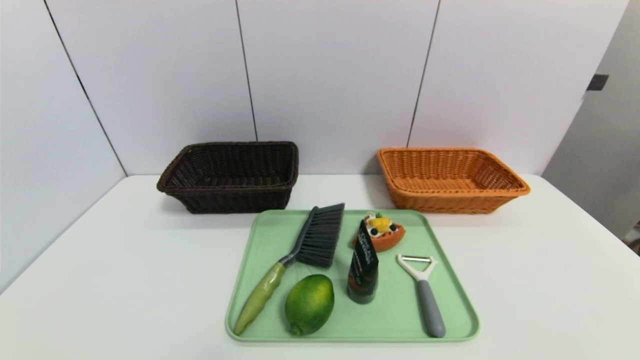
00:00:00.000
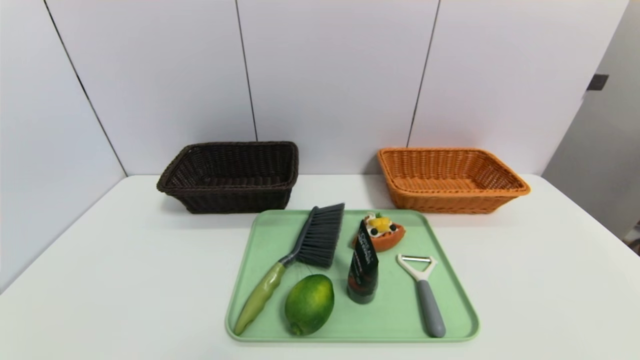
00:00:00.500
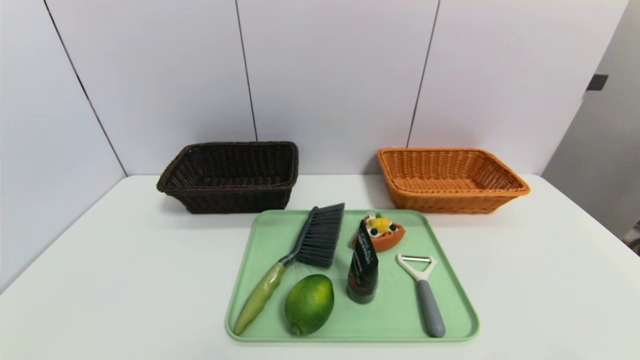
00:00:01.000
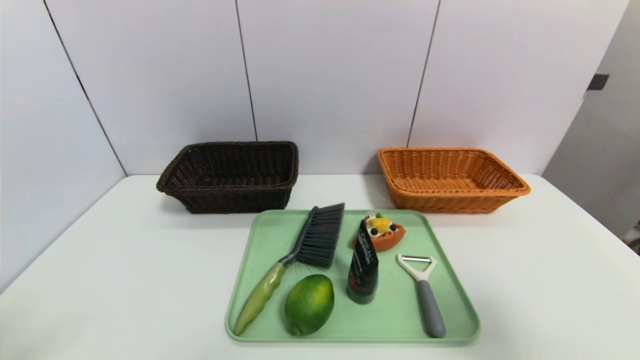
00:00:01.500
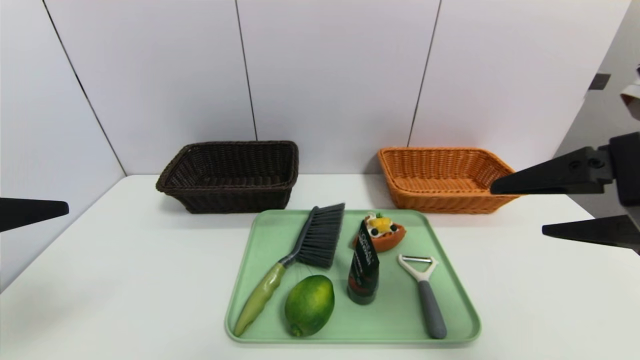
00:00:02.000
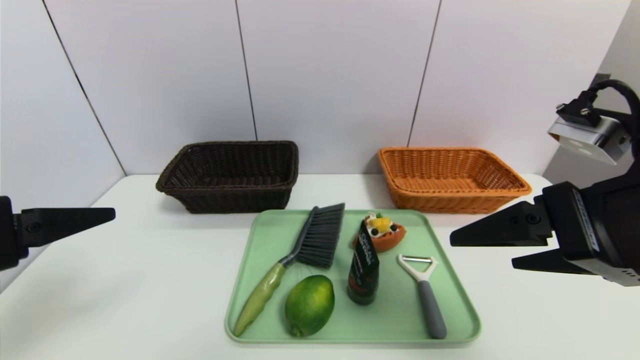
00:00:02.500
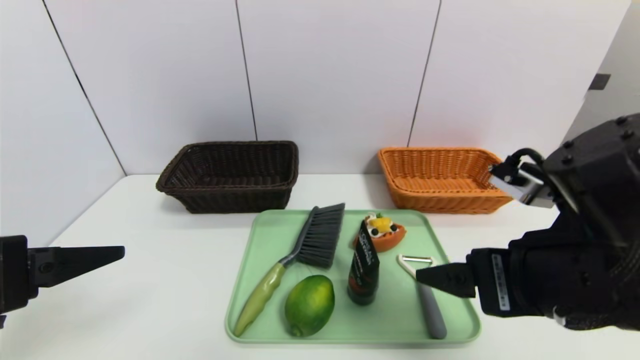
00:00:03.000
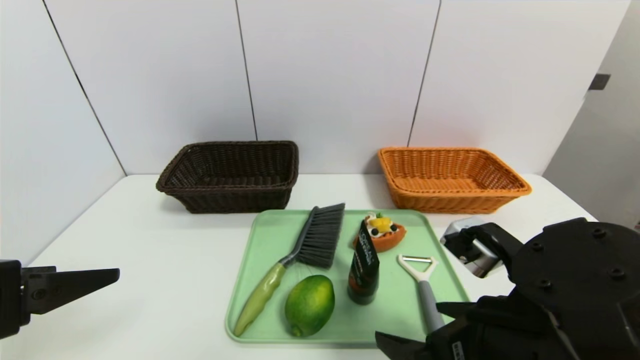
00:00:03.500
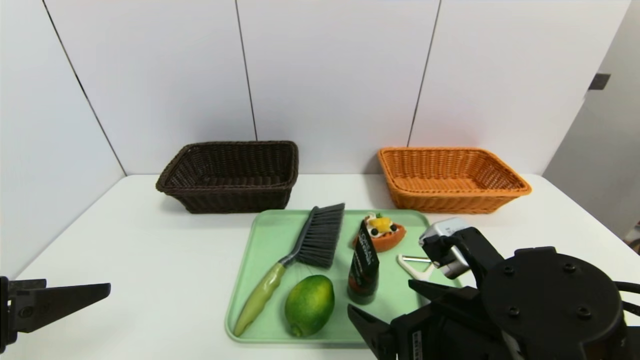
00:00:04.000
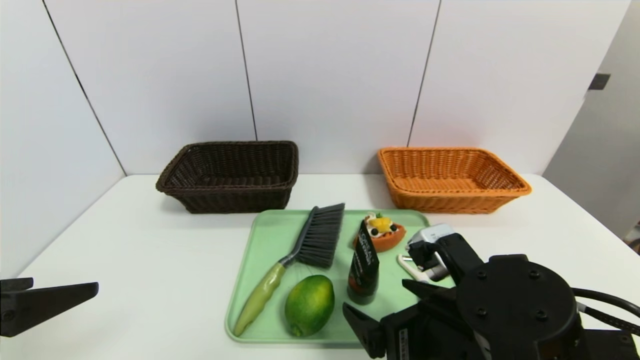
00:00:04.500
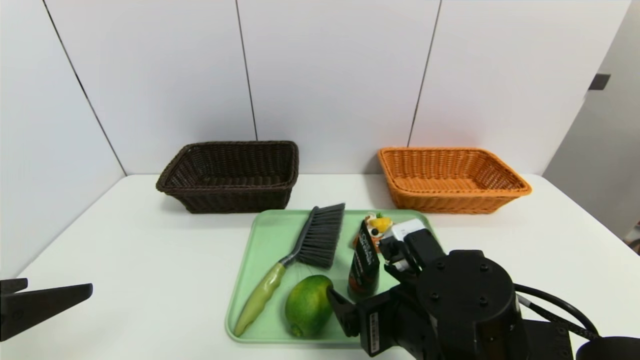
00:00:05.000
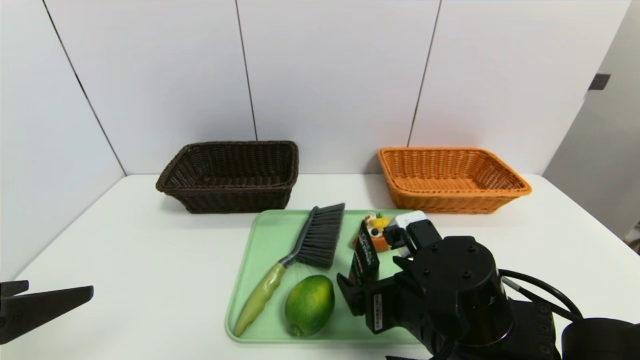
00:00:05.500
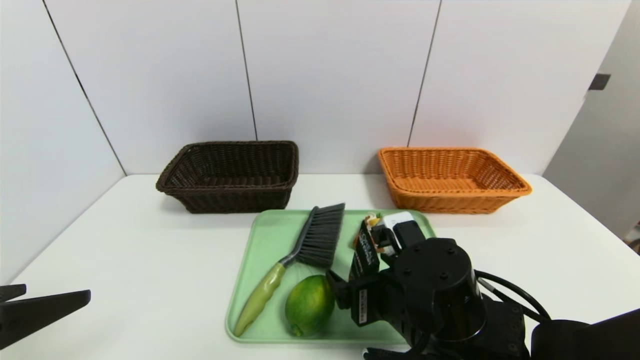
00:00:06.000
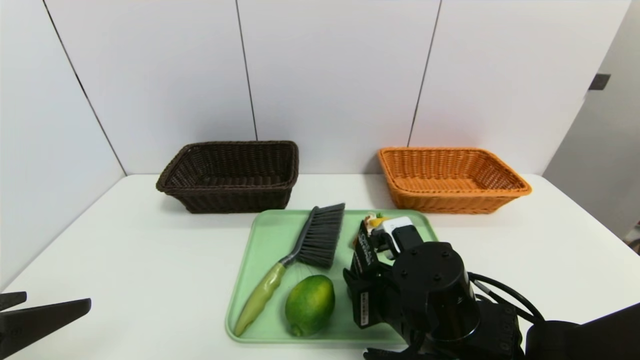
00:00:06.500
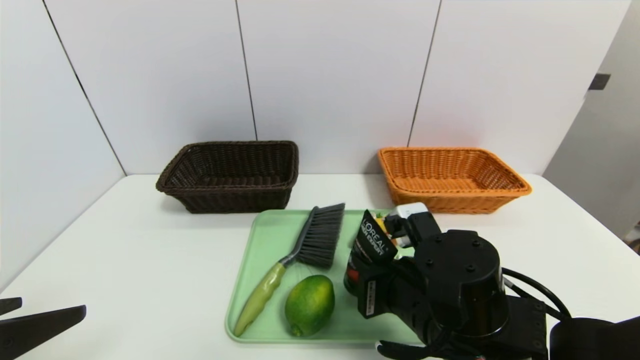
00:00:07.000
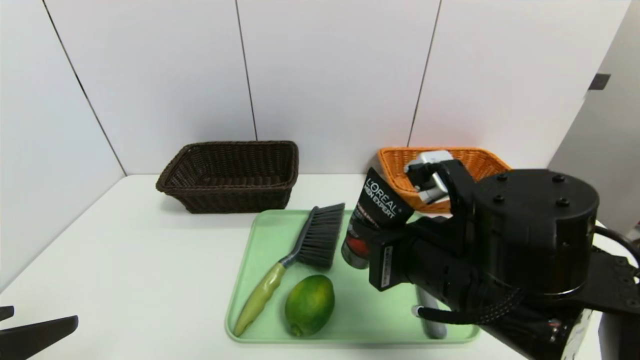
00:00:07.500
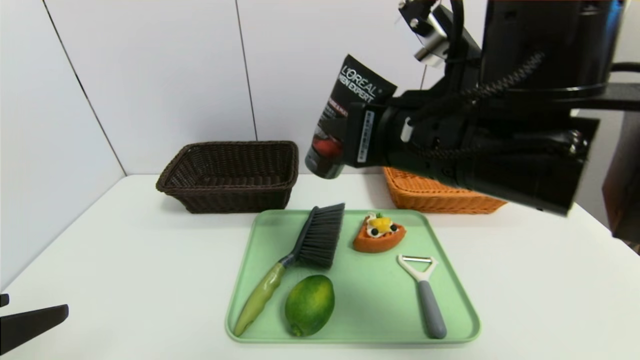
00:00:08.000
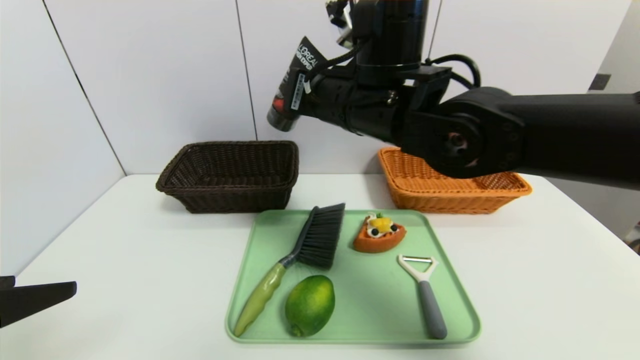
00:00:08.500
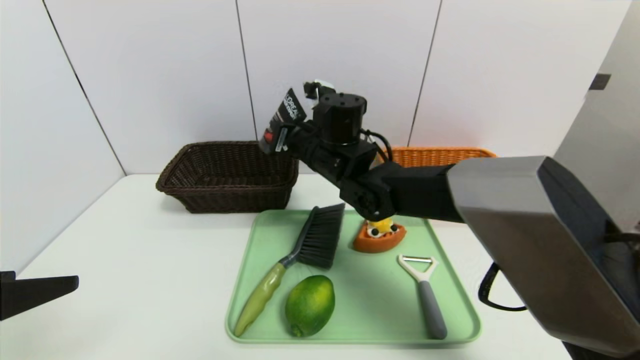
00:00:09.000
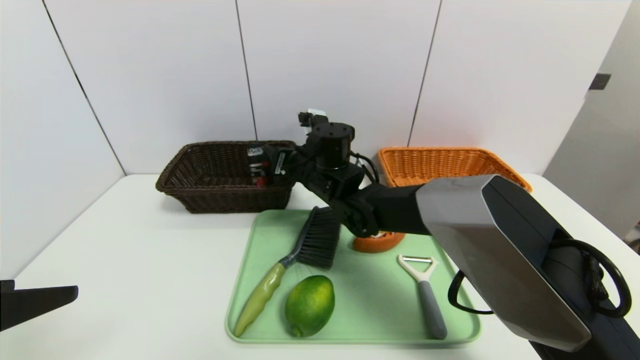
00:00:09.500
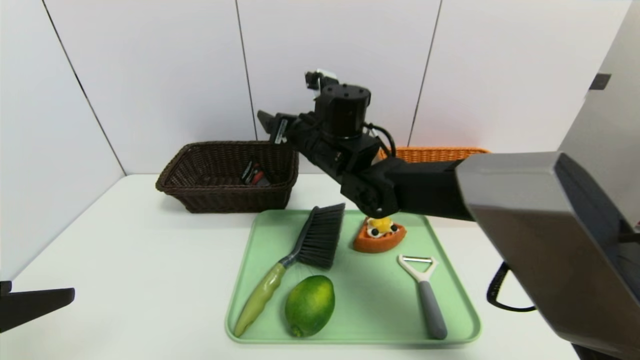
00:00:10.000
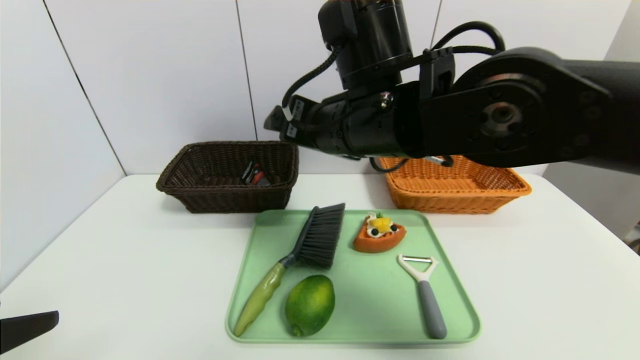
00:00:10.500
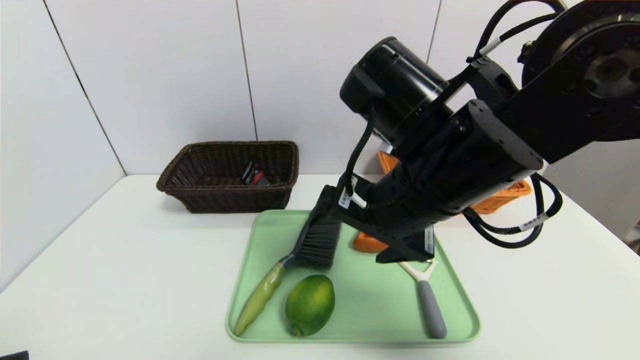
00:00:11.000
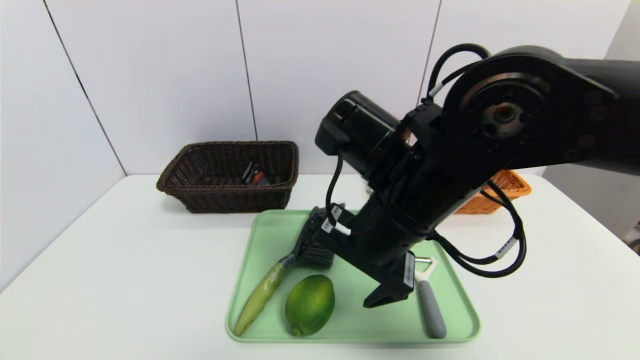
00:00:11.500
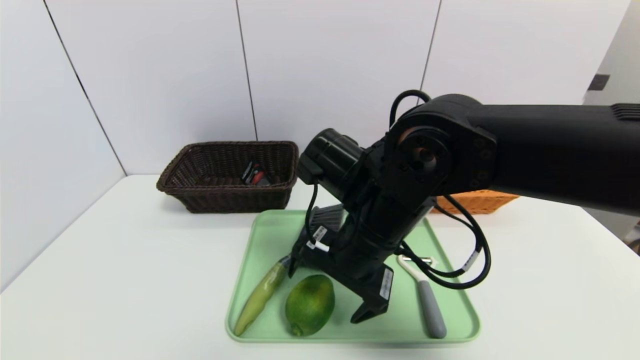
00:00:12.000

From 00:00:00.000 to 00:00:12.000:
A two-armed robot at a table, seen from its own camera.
Task of the whole recording: place the food in the right basket with the right gripper, and place the non food items in the left basket with the left gripper.
Step, from 00:00:00.000 to 00:00:09.500: Grasp the soft cleanser and put it in the left basket.
From 00:00:00.000 to 00:00:02.000: Both grippers travel together upward and forward, some 25 cm.
From 00:00:02.000 to 00:00:04.000: The right gripper heads downward and to the left, covering some 20 cm; the left gripper travels downward by approximately 5 cm.
From 00:00:04.000 to 00:00:06.000: The right gripper goes about 5 cm forward.
From 00:00:06.000 to 00:00:08.000: The right gripper is displaced upward by about 20 cm, and closes up.
From 00:00:08.000 to 00:00:10.000: The right gripper moves forward, to the left and downward, about 20 cm, and opens up.
From 00:00:10.000 to 00:00:12.000: The left gripper shifts approximately 10 cm backward. The right gripper travels backward by about 15 cm.

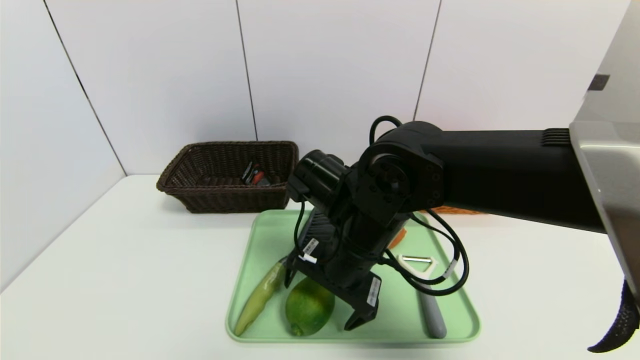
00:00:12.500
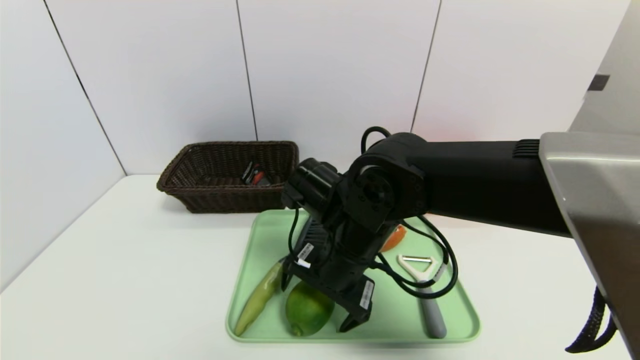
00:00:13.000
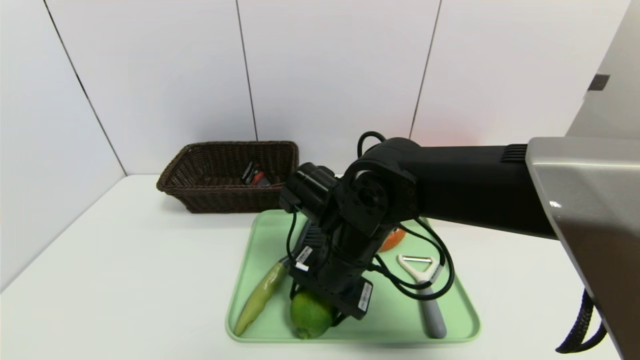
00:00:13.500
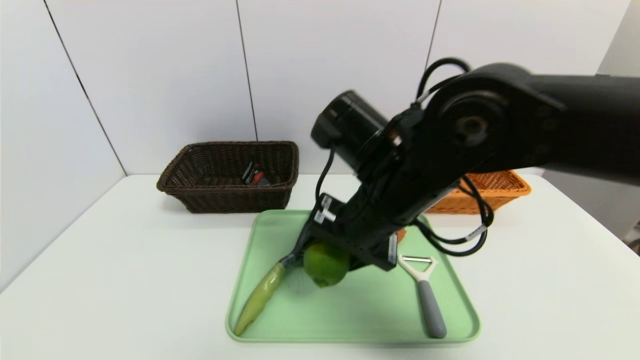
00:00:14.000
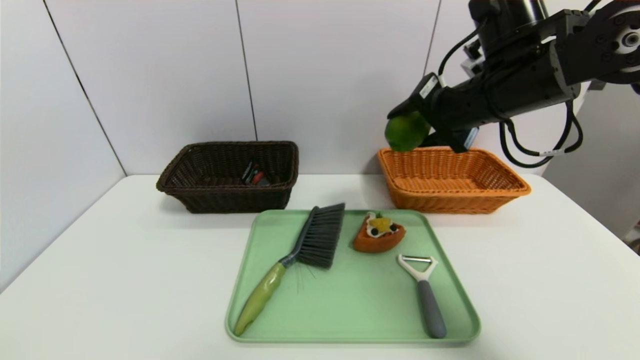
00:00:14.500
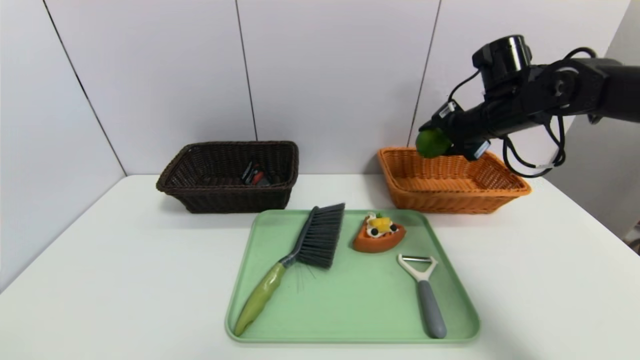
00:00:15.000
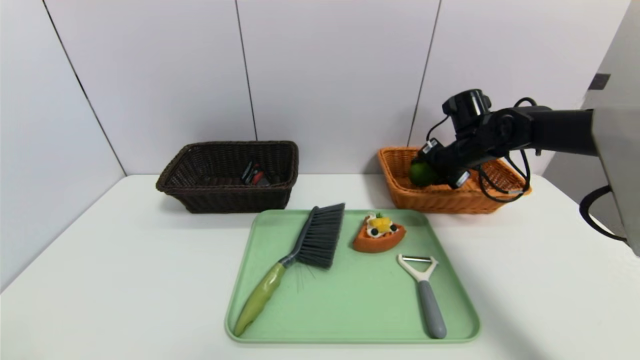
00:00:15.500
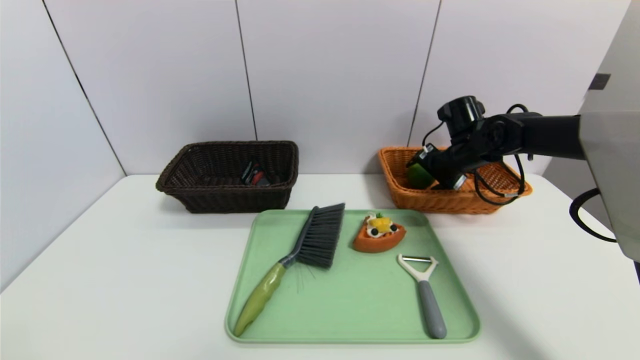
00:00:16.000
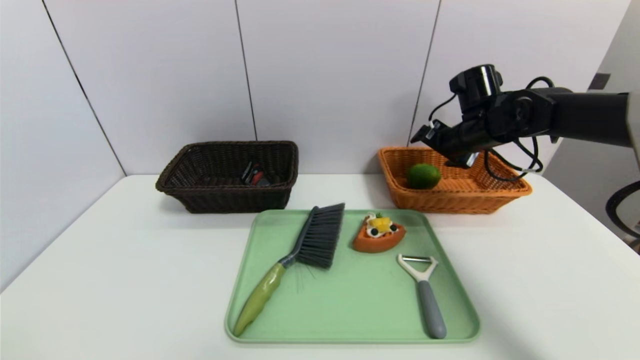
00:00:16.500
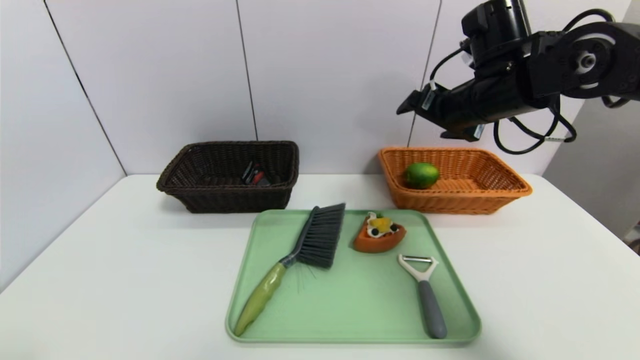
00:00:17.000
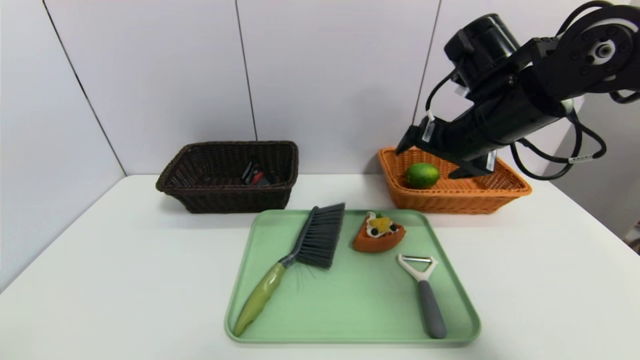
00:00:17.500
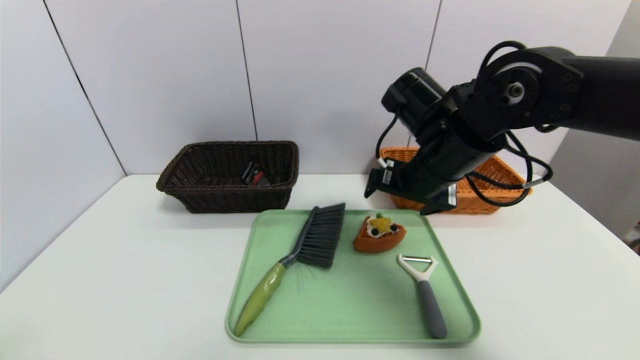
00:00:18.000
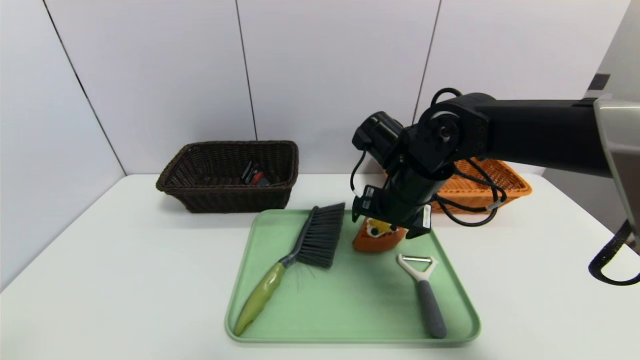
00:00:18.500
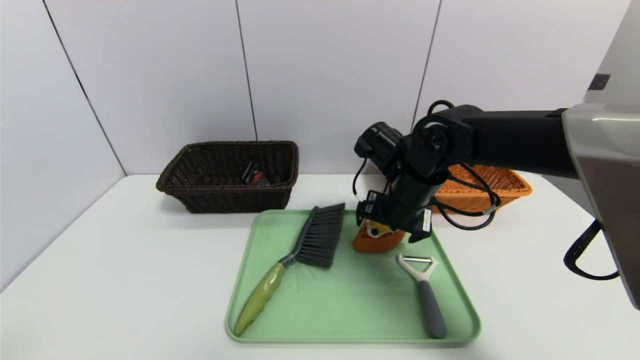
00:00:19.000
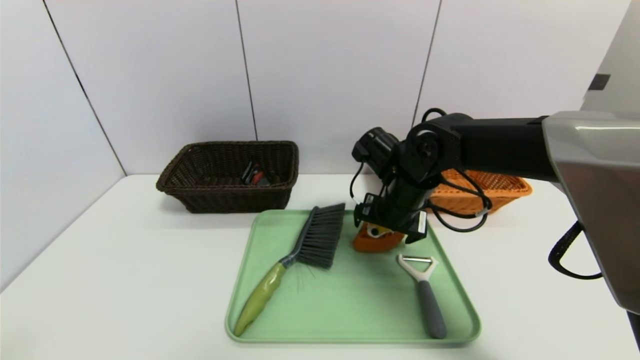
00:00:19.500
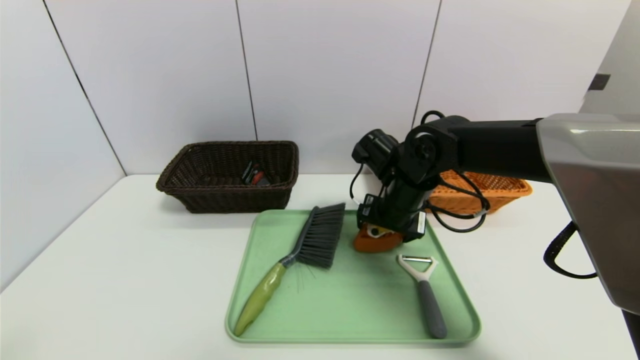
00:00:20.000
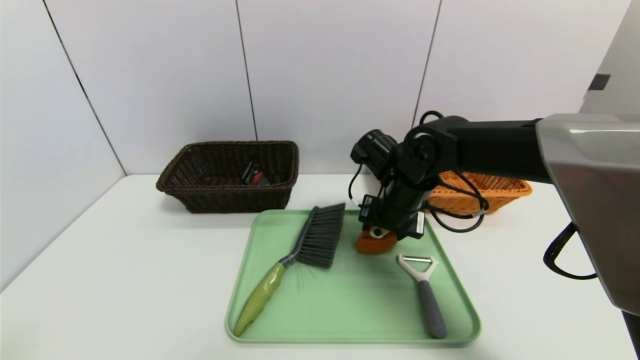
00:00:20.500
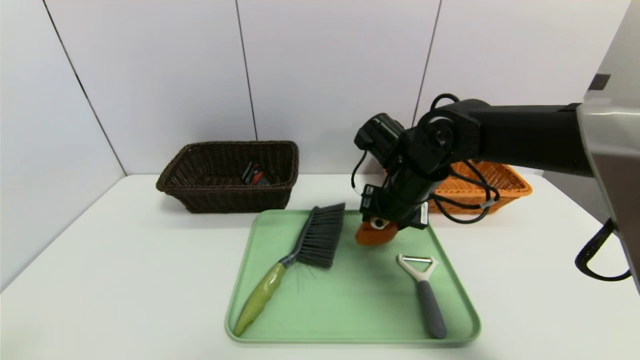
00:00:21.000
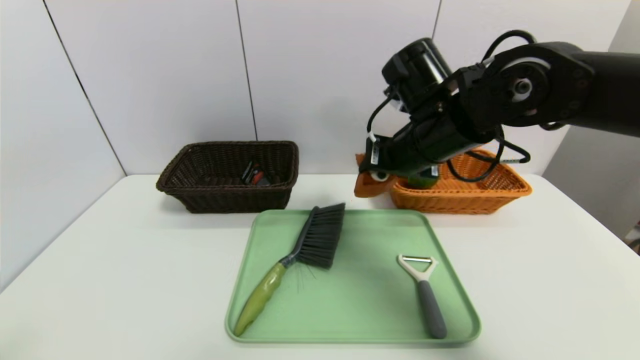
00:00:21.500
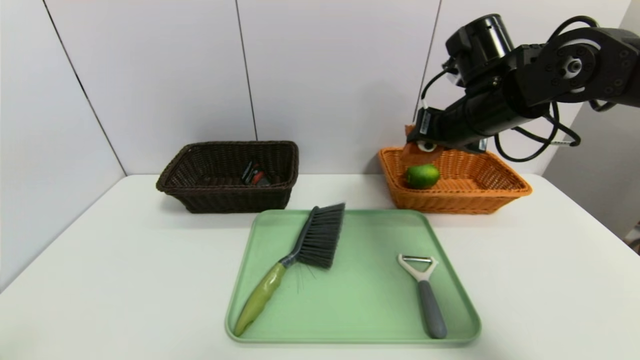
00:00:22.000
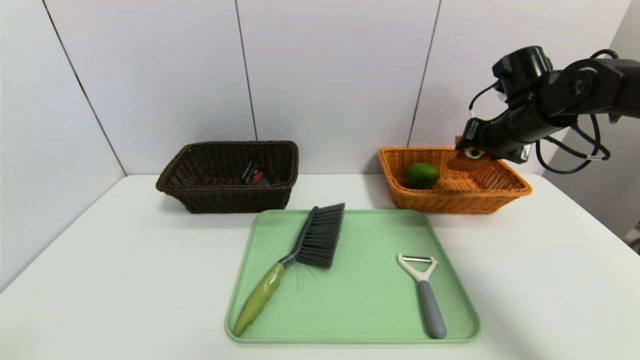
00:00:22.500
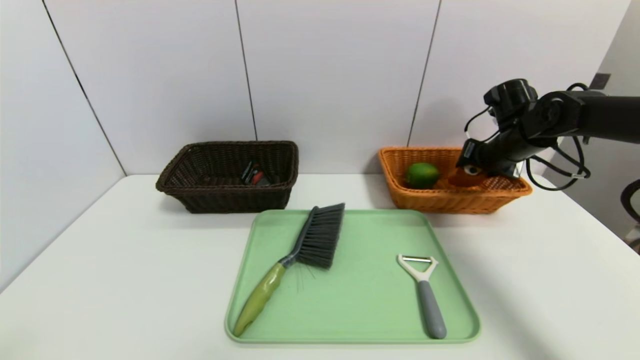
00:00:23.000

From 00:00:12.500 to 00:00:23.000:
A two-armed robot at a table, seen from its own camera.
Task of the whole recording: place the food in the right basket with the right gripper, and place the non food items in the left basket with the left gripper.
Step, from 00:00:12.500 to 00:00:16.500: Grasp the lime and put it in the right basket.
From 00:00:12.500 to 00:00:14.500: The right gripper travels to the right, upward and forward by roughly 20 cm, and closes its fingers.
From 00:00:14.500 to 00:00:16.500: The right gripper shifts roughly 15 cm forward, downward and to the right, and opens.
From 00:00:16.500 to 00:00:19.000: The right gripper shifts roughly 15 cm to the left and backward.
From 00:00:19.000 to 00:00:21.000: The right gripper closes up.
From 00:00:21.000 to 00:00:23.000: The right gripper shifts approximately 25 cm to the right and forward.
